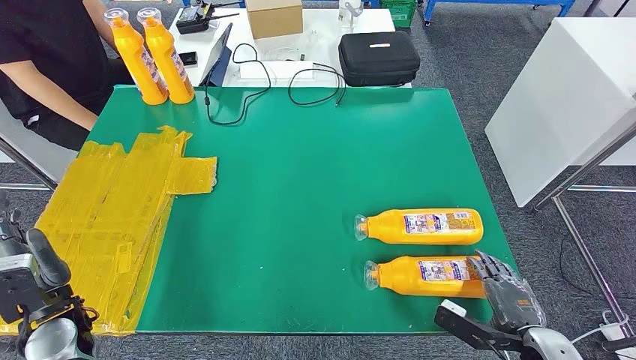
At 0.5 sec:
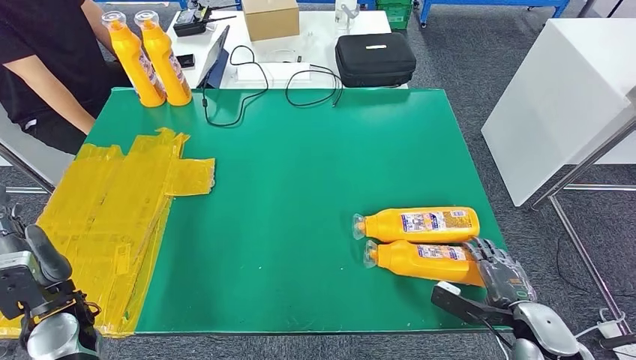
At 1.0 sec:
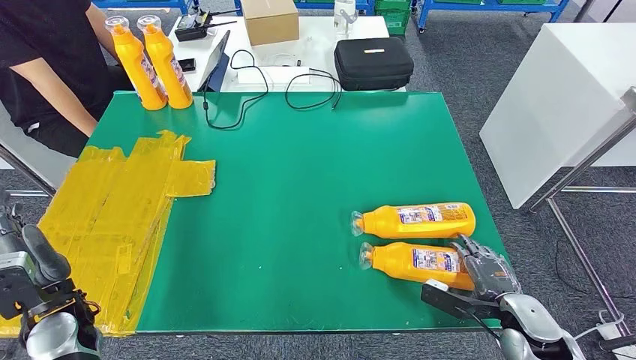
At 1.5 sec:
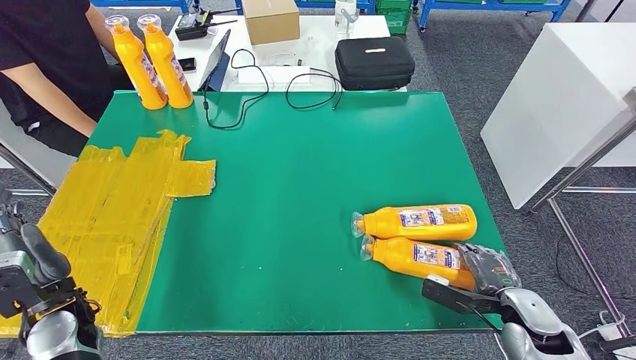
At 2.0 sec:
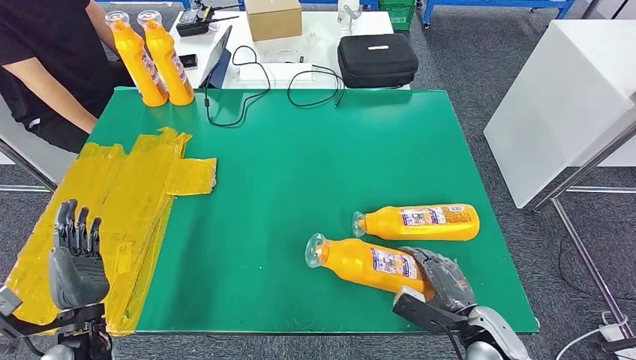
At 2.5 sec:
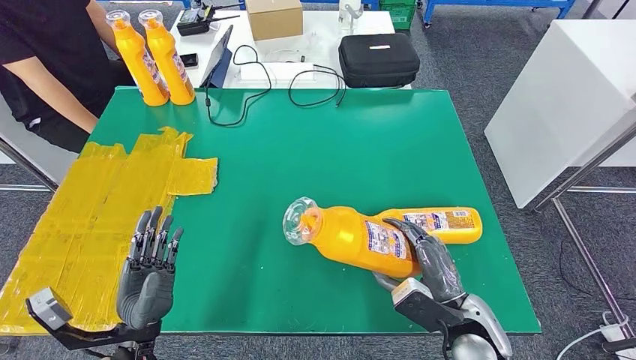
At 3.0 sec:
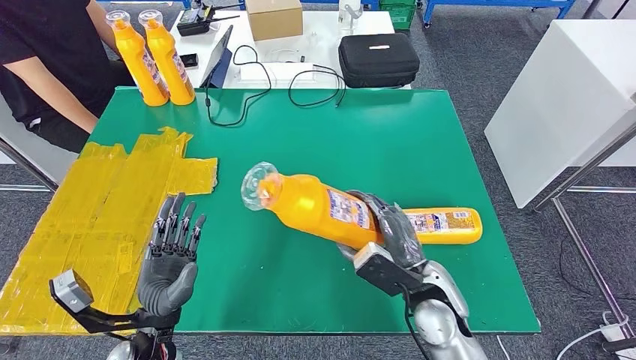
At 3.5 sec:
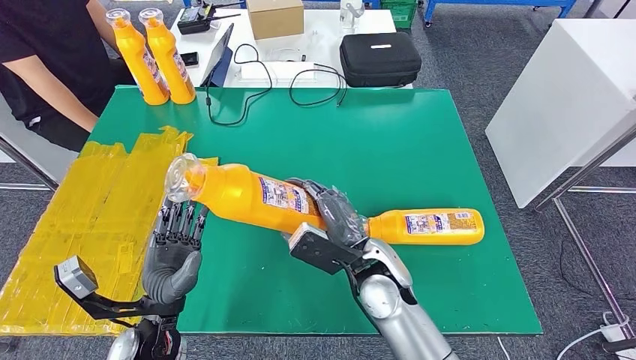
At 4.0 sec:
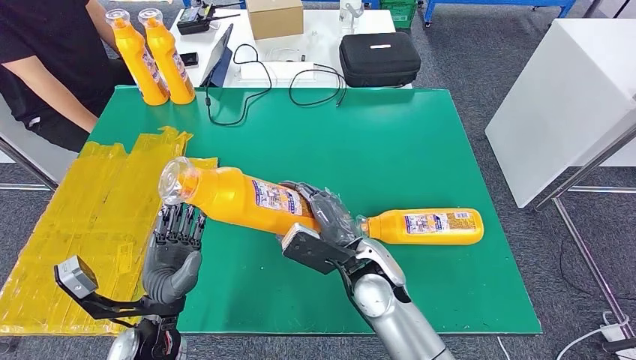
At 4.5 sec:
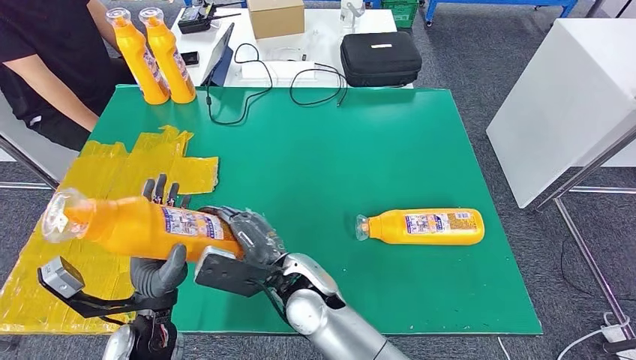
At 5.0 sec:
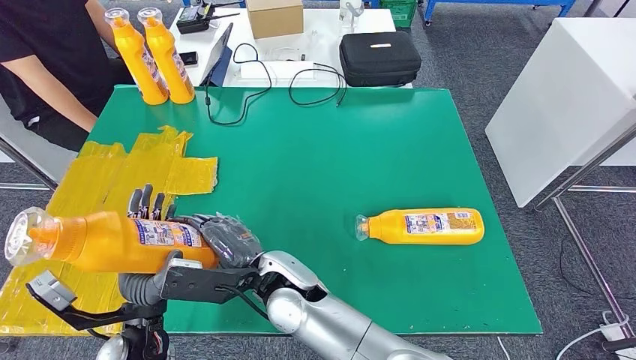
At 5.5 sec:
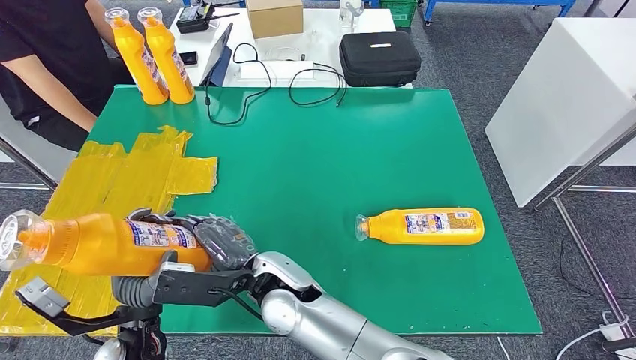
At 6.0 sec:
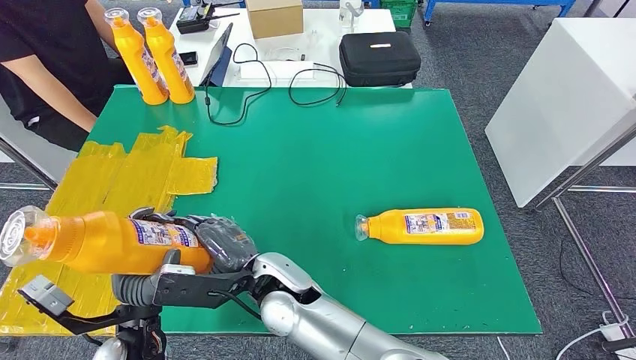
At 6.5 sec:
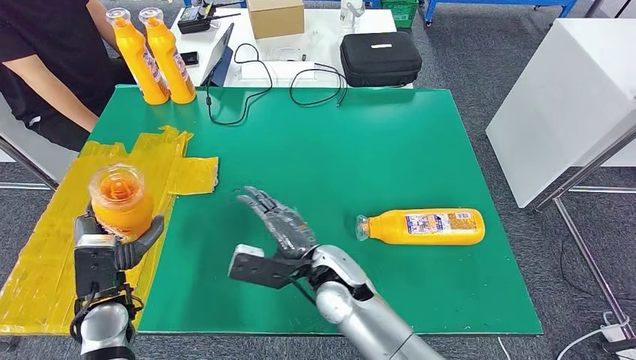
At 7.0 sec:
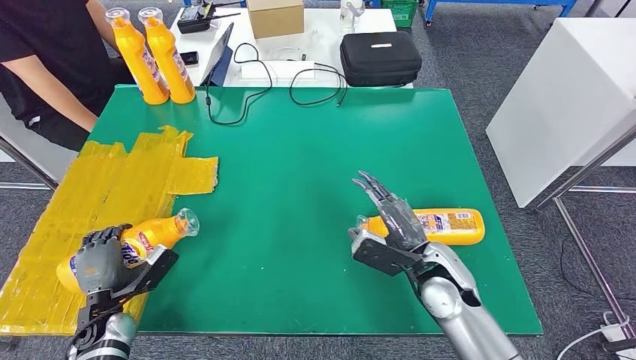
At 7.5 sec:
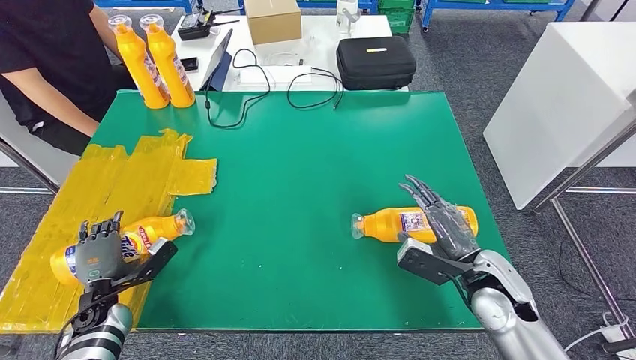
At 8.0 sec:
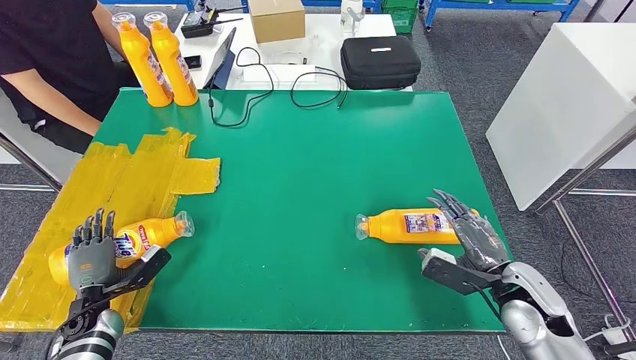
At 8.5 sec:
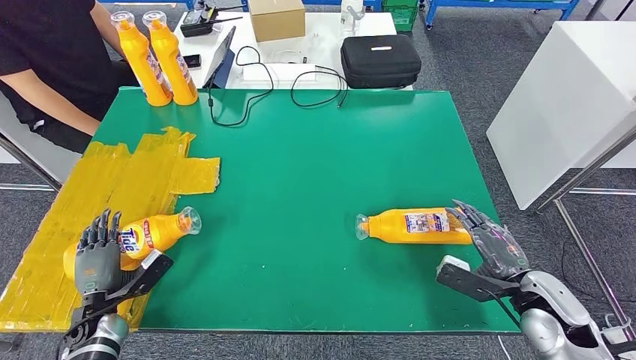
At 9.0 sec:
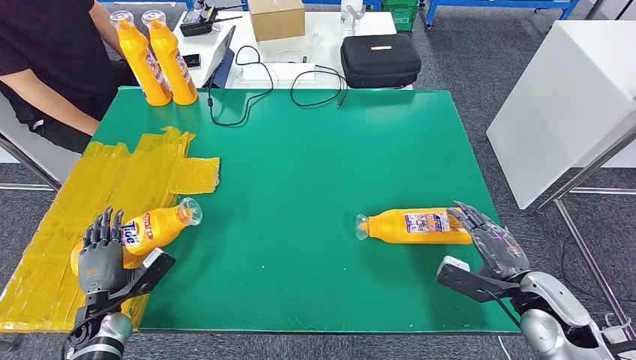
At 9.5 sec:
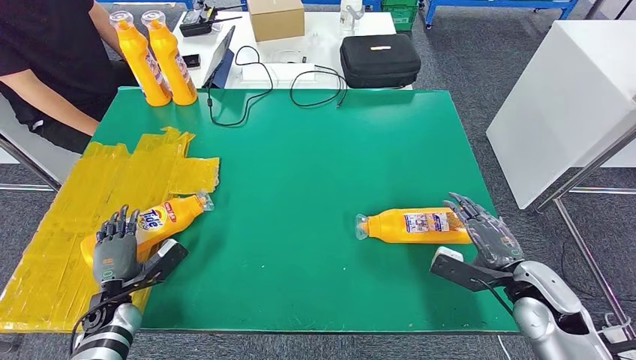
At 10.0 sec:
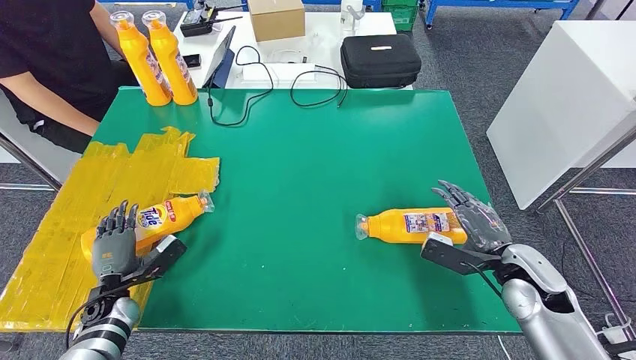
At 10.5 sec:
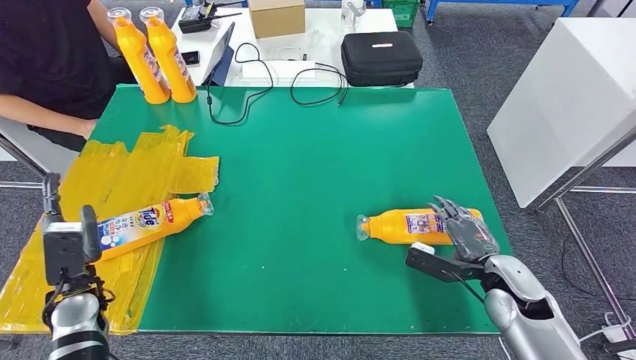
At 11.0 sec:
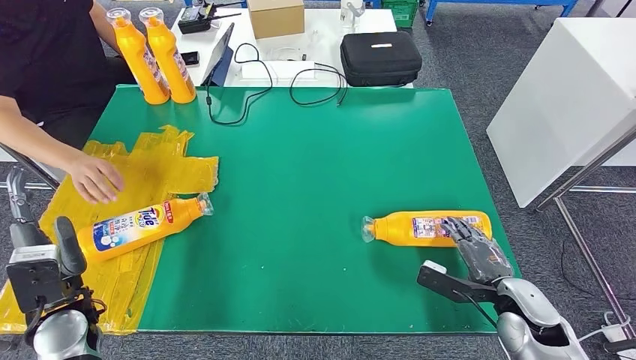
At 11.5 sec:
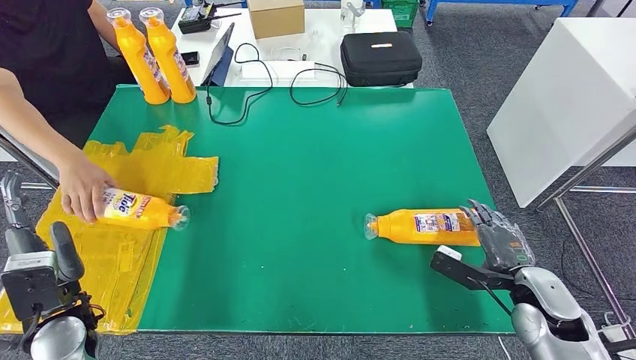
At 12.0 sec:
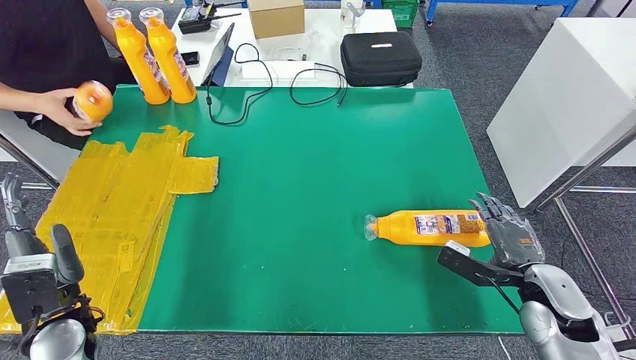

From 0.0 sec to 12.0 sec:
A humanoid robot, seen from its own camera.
Step, from 0.0 sec to 3.5 sec: Pick up the bottle from the table.
Step, from 4.0 sec to 7.5 sec: Flip the bottle to face forward.
From 0.0 sec to 2.0 sec: The right hand is displaced to the left by approximately 5 cm.
From 4.0 sec to 6.0 sec: The right hand heads to the left, covering some 15 cm.
From 8.0 sec to 10.0 sec: The hands make only small movements.

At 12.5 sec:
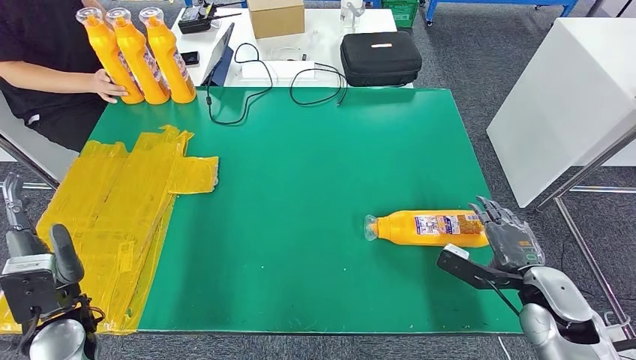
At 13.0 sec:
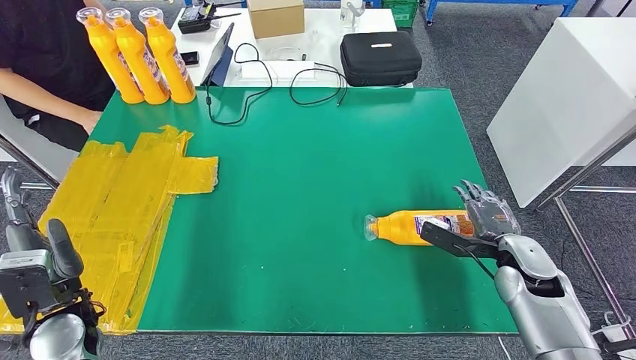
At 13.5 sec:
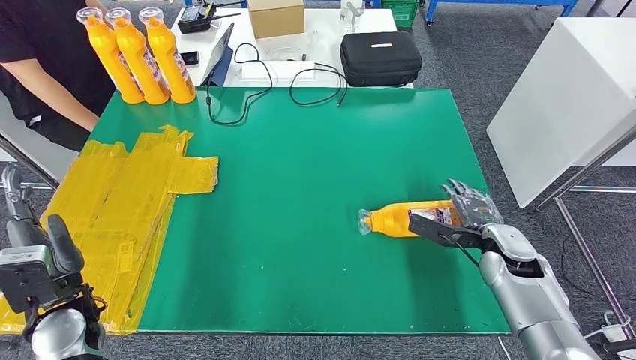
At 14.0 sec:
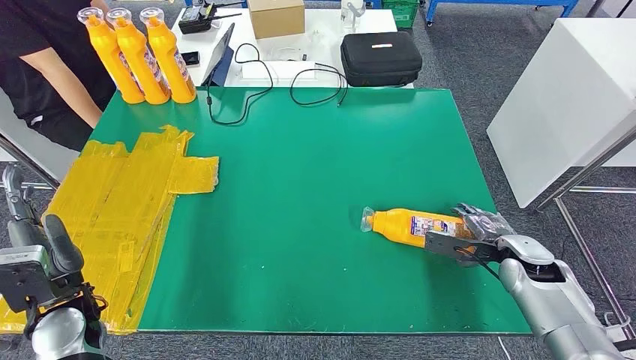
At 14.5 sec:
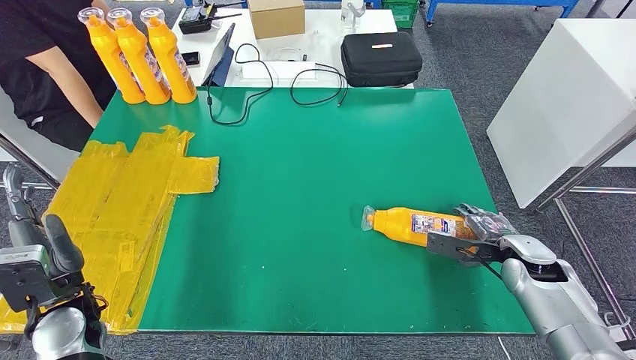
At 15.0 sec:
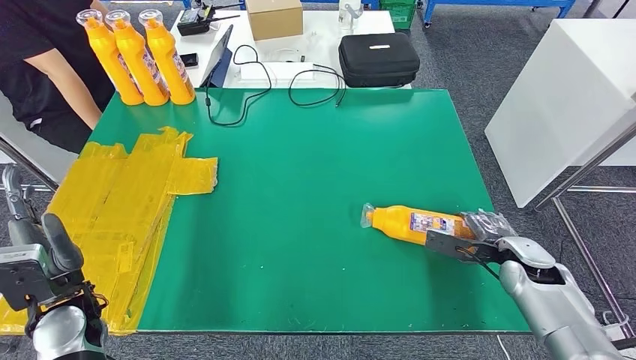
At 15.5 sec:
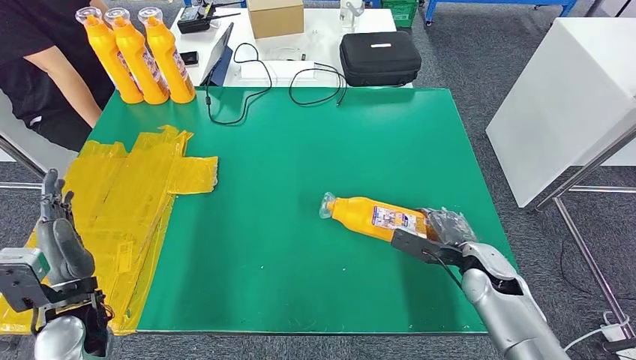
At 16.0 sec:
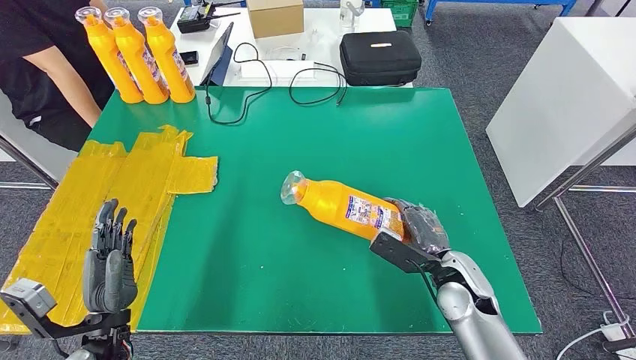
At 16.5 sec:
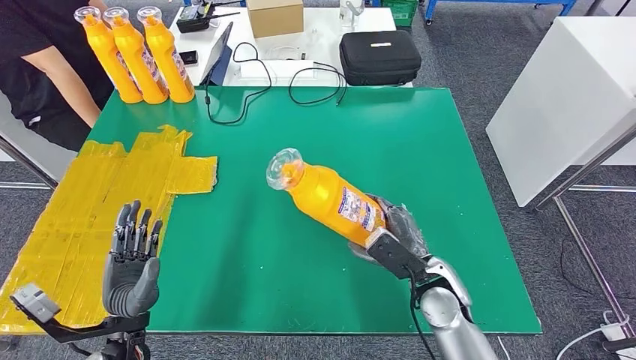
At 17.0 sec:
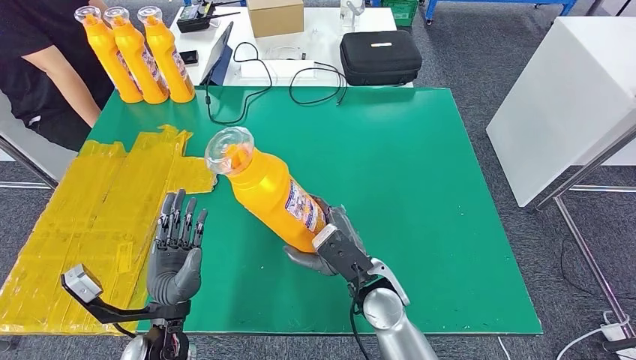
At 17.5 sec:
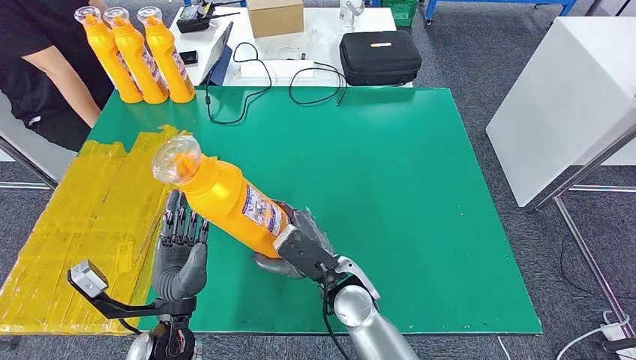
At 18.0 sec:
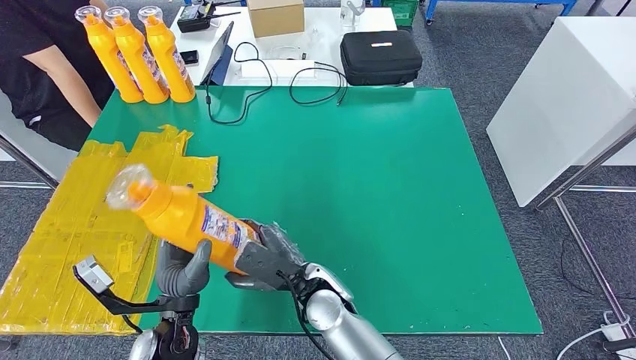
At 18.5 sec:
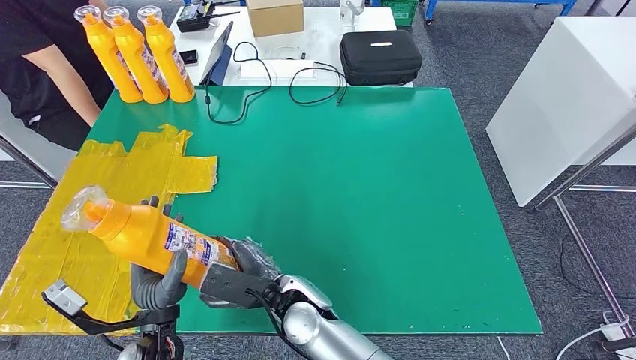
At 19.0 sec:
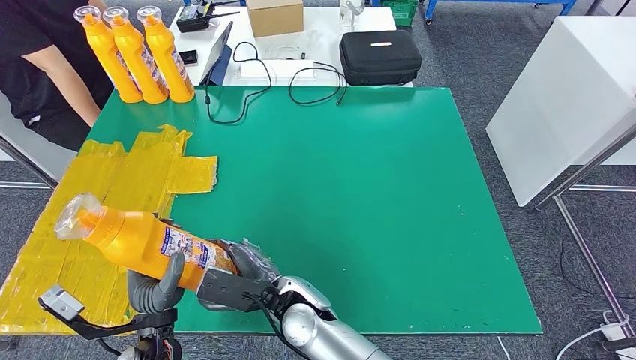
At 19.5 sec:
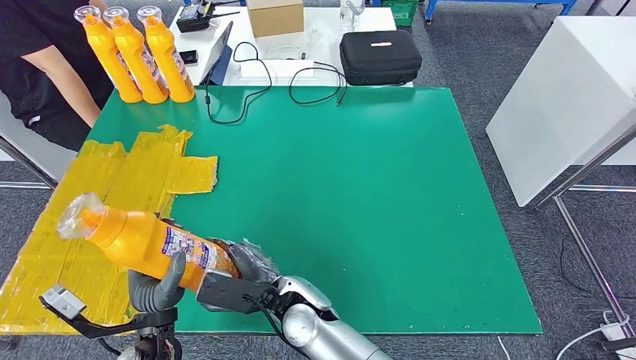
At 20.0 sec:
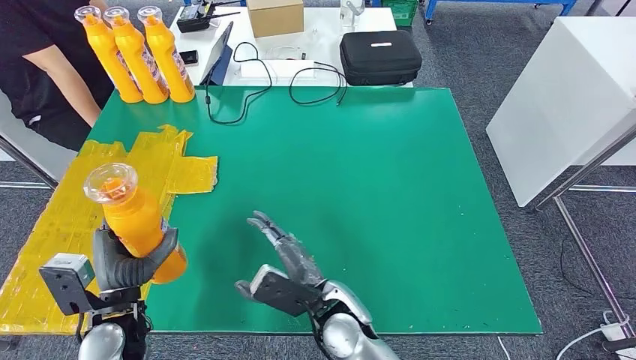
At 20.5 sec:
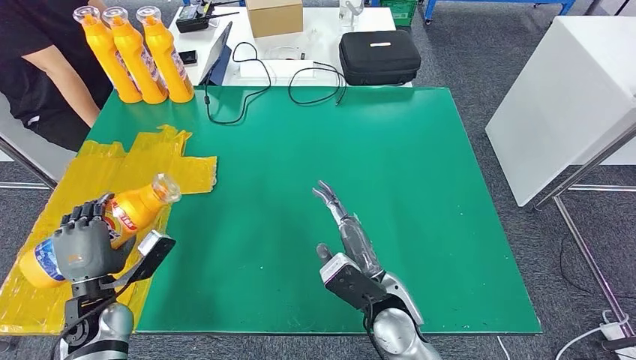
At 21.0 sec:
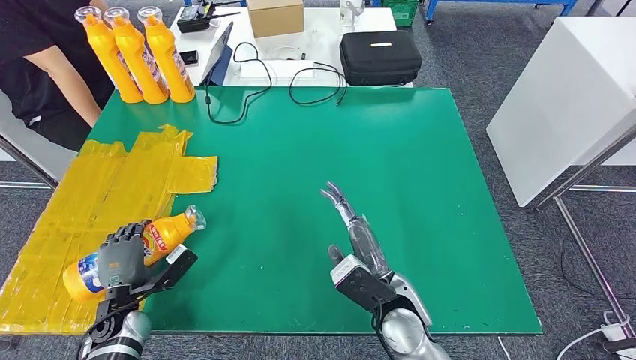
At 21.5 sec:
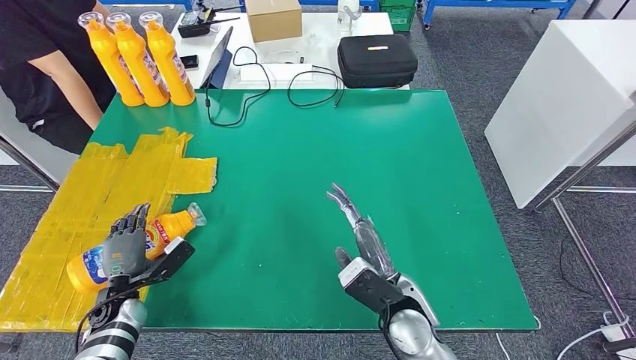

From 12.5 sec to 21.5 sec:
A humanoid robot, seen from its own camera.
Step, from 12.5 sec to 17.5 sec: Pick up the bottle from the table.
Step, from 18.0 sec to 21.5 sec: Flip the bottle to face forward.
From 12.5 sec to 14.5 sec: The right hand goes roughly 10 cm forward.
From 17.0 sec to 19.5 sec: The right hand moves to the left, roughly 15 cm.
